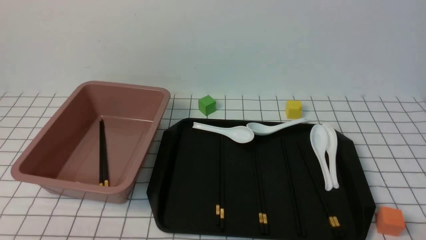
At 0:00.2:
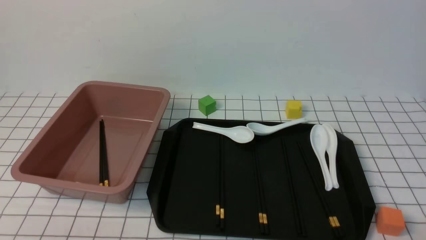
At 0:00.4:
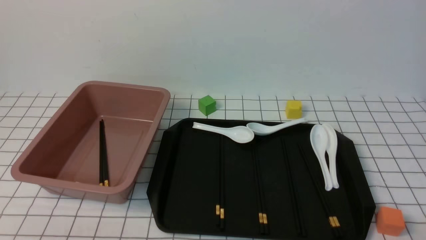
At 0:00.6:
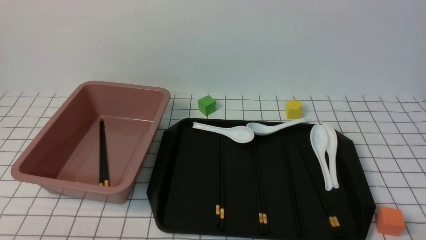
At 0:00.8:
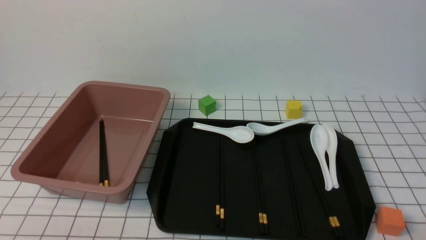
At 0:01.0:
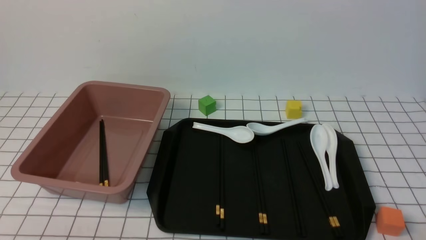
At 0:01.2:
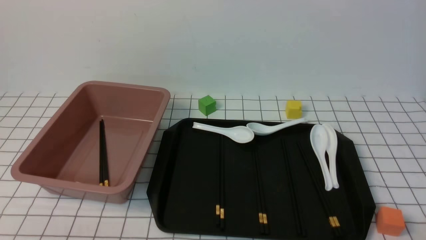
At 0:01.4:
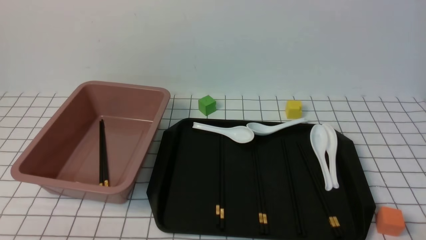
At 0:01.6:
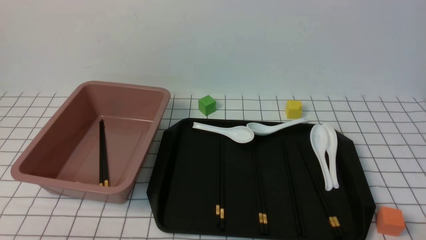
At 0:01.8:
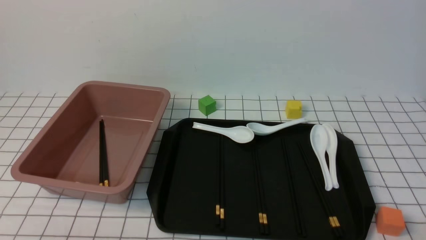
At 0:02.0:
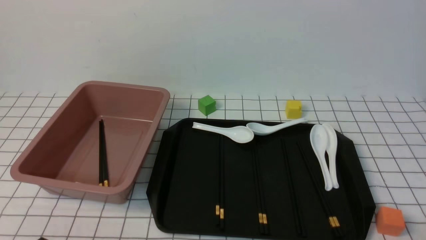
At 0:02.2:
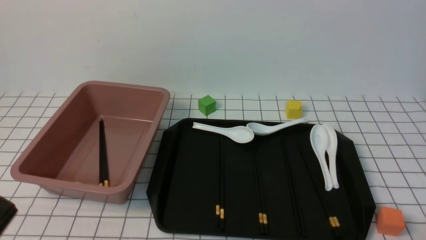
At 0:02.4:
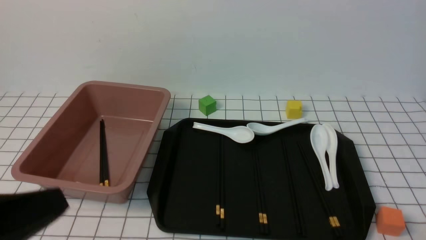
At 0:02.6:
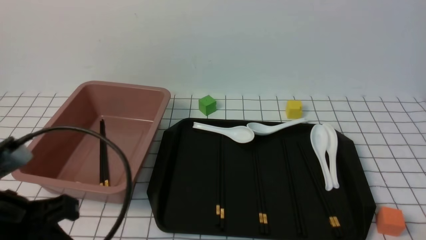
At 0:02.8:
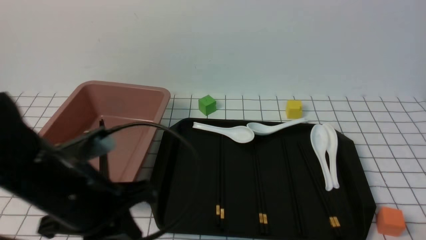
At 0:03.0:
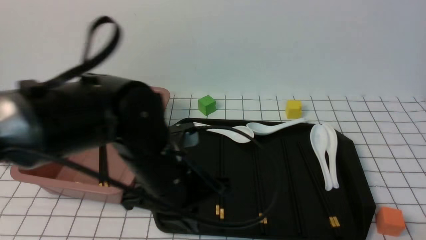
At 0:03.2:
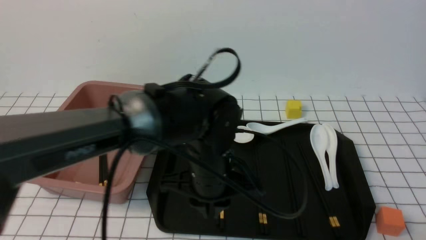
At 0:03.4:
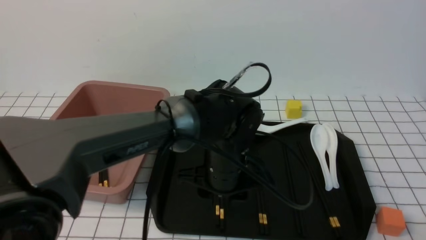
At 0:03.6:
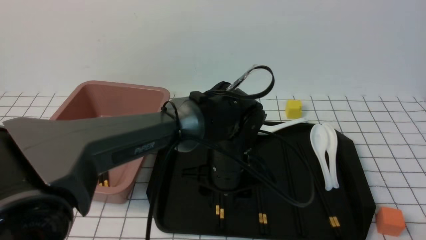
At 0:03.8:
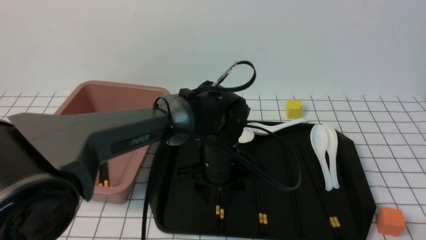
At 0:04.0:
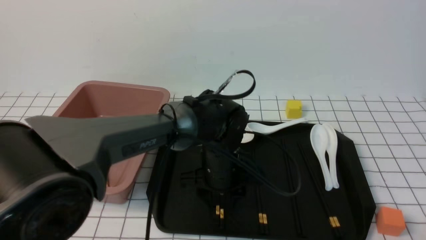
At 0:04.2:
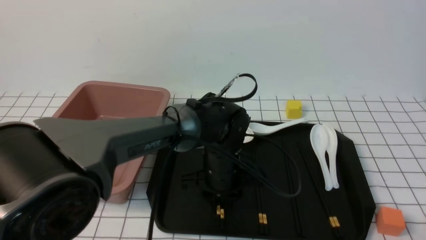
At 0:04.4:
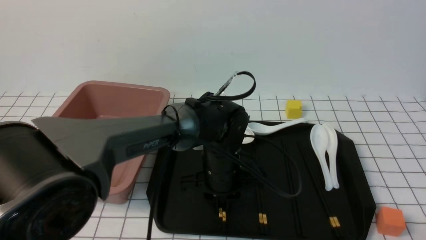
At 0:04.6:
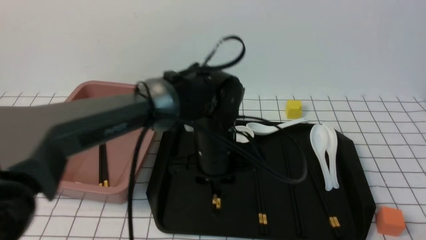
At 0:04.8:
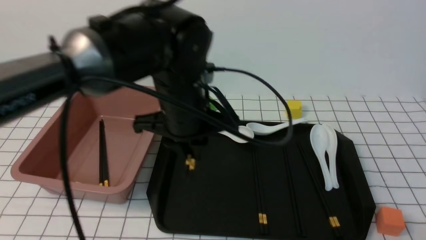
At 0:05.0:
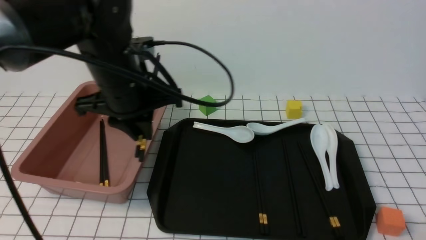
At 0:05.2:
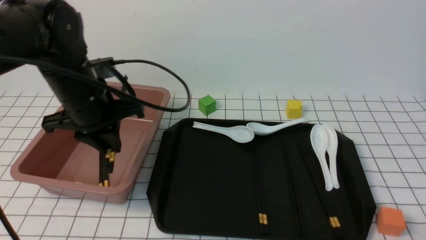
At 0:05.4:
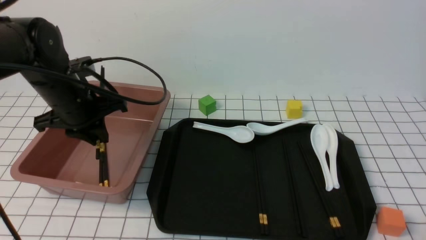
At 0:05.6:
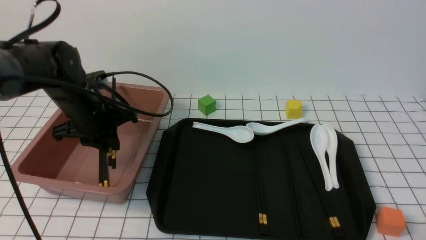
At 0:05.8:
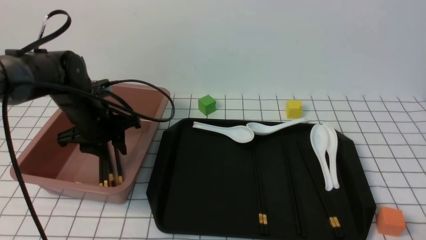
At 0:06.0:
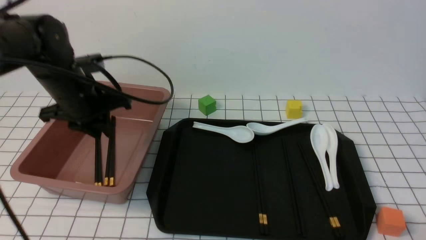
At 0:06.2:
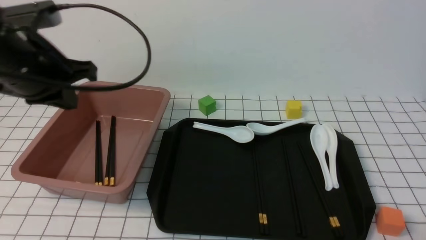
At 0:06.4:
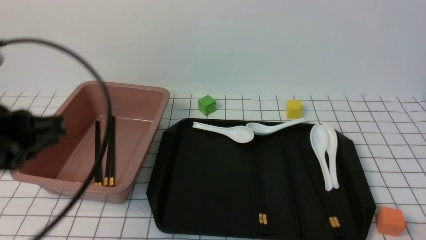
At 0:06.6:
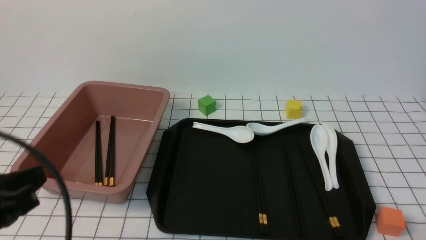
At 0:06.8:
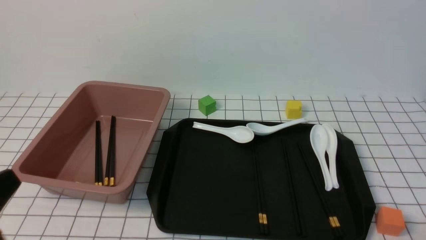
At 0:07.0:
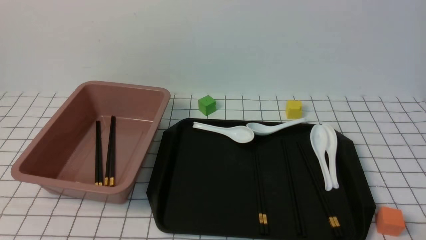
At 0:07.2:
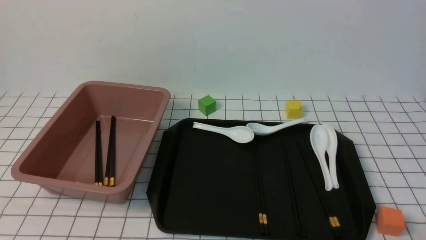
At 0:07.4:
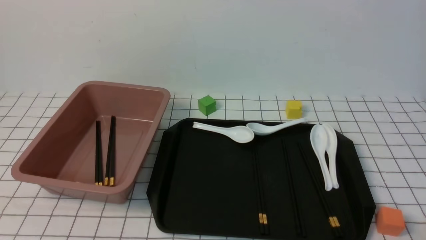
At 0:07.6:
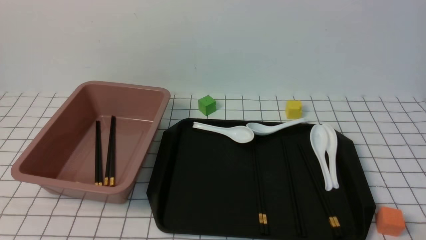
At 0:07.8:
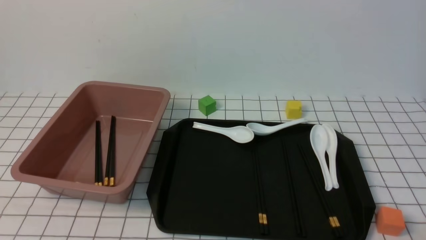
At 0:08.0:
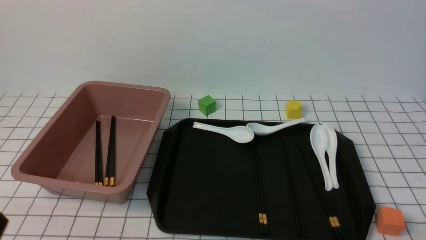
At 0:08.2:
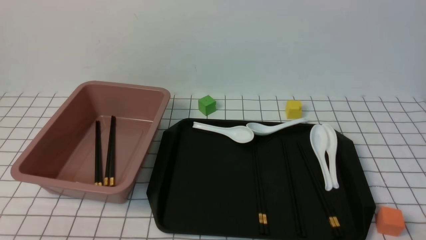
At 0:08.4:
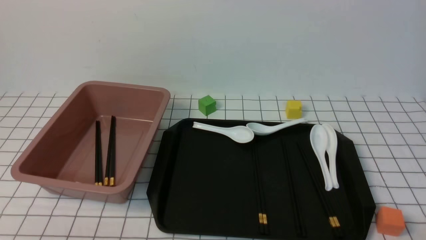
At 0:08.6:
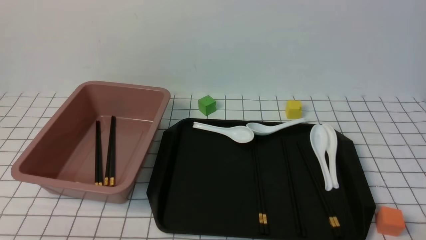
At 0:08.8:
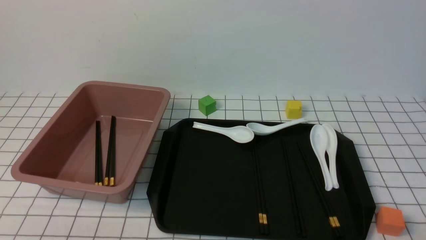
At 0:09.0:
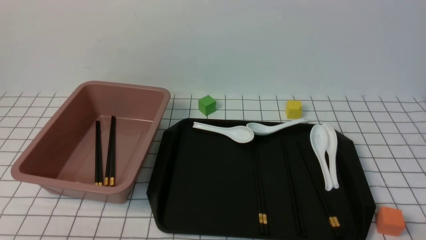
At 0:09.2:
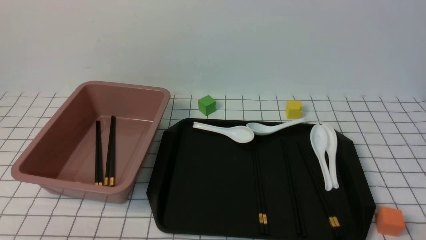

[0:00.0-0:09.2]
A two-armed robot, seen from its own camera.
Step, 0:00.0 to 0:04.6: use the left arm to grab a pair of chopsticks.
Step, 0:04.8 to 0:06.0: use the left arm to put the chopsticks into the lunch box.
0:01.6 to 0:03.0: The left gripper shifts some 30 cm forward, to the right and upward.
0:03.0 to 0:04.6: The left gripper moves forward and to the right, about 10 cm, goes downward and returns, approximately 10 cm each way, and opens and closes again.
0:04.6 to 0:06.2: The left gripper heads to the left and upward, covering roughly 25 cm.
0:06.2 to 0:07.6: The left gripper is displaced backward by approximately 25 cm.
